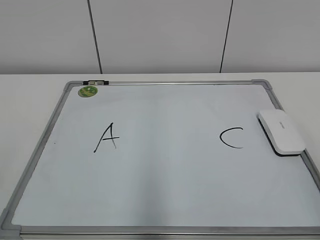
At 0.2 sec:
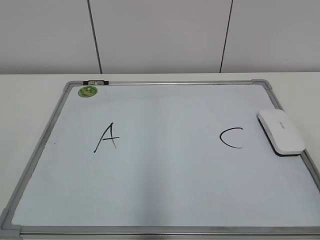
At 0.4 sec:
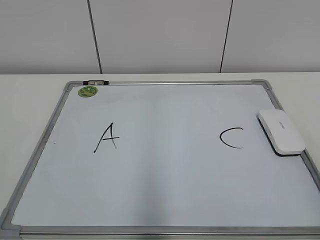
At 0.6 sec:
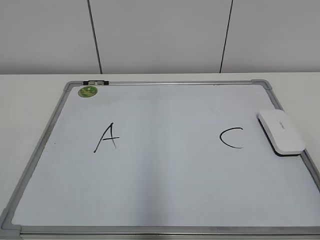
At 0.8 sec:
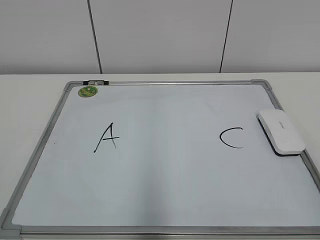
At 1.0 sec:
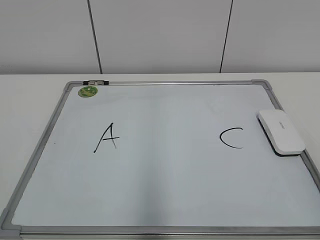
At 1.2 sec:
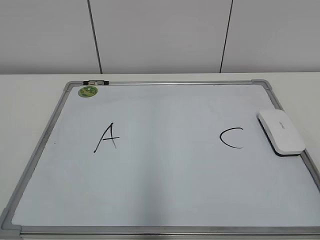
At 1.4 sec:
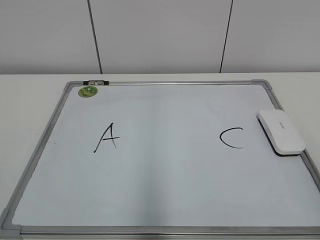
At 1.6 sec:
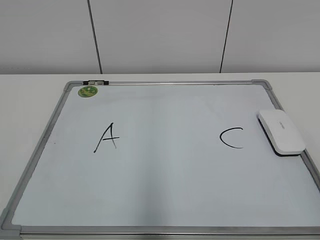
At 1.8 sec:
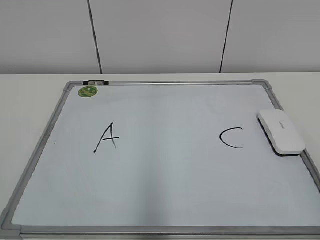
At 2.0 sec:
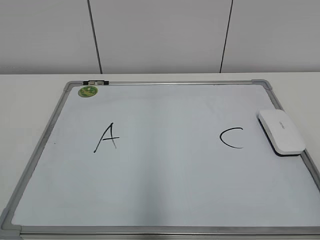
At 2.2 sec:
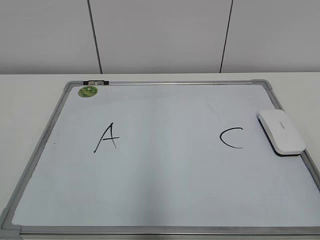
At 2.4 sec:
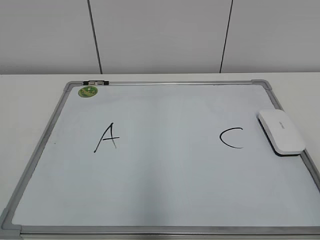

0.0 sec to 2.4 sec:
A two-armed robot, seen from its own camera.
Task of the whole recording: pick up the eraser on the blackboard and erase the letter "B".
1.2 sec to 2.4 sec: Neither gripper changes place.
